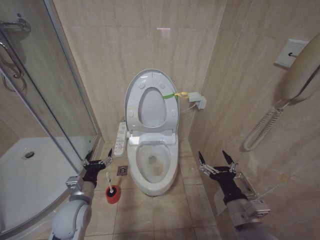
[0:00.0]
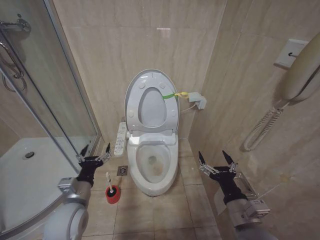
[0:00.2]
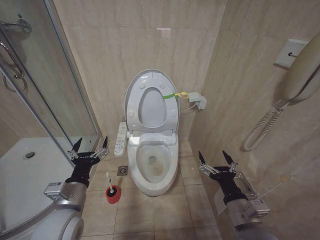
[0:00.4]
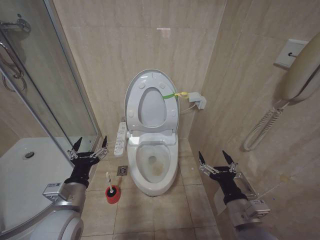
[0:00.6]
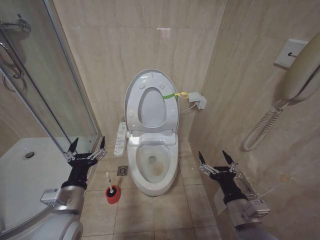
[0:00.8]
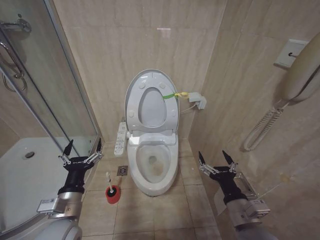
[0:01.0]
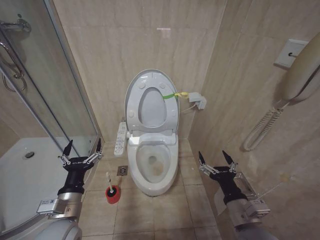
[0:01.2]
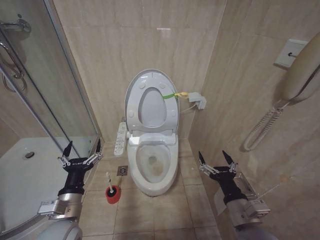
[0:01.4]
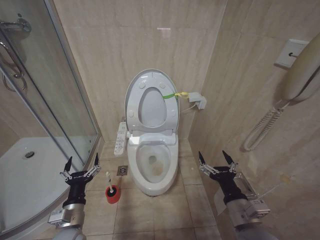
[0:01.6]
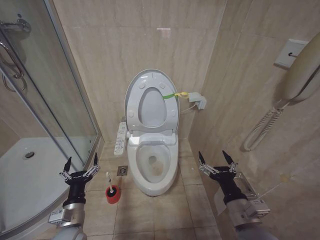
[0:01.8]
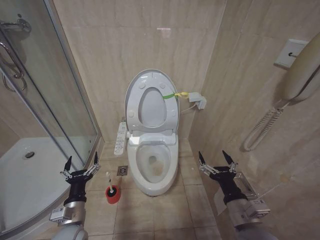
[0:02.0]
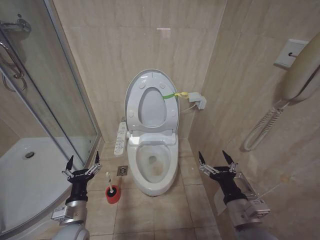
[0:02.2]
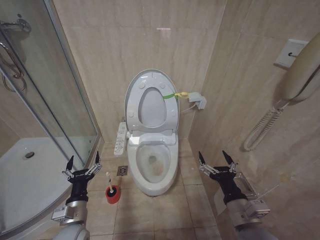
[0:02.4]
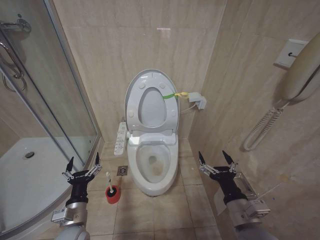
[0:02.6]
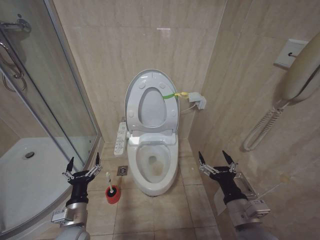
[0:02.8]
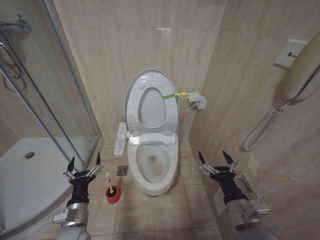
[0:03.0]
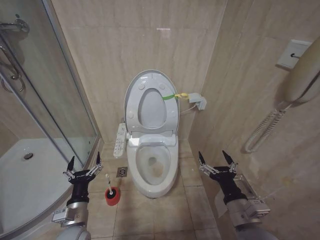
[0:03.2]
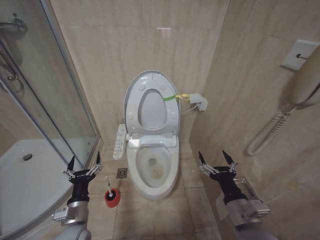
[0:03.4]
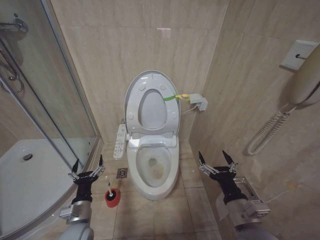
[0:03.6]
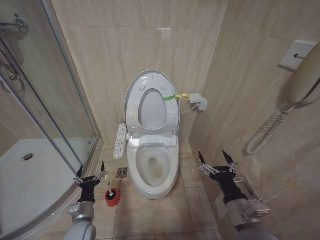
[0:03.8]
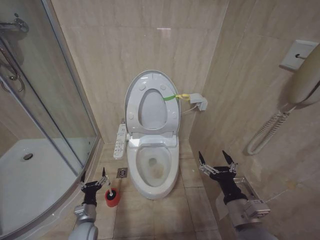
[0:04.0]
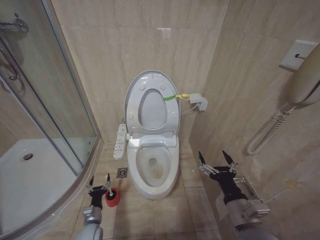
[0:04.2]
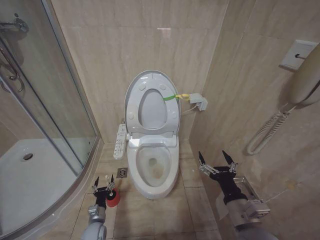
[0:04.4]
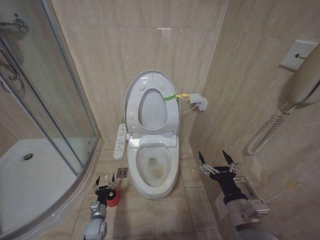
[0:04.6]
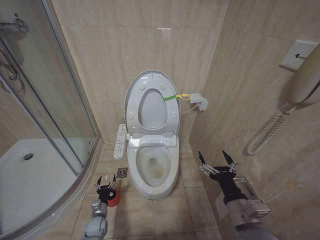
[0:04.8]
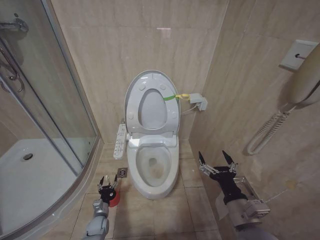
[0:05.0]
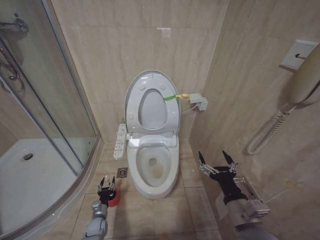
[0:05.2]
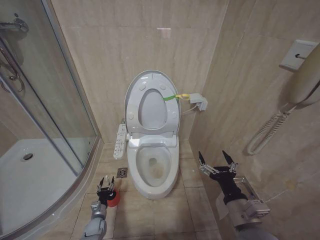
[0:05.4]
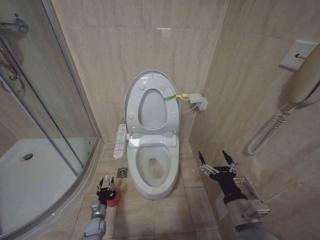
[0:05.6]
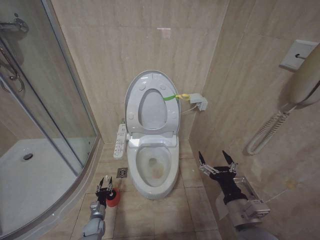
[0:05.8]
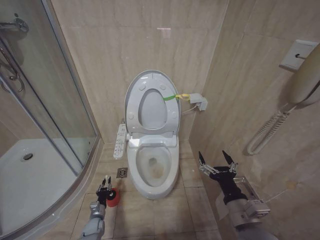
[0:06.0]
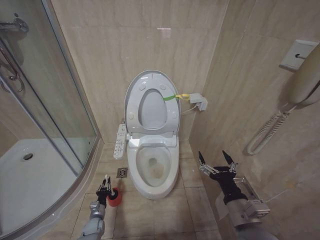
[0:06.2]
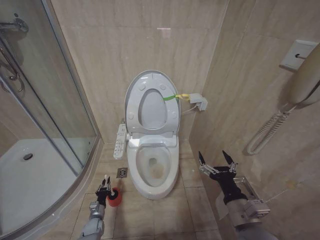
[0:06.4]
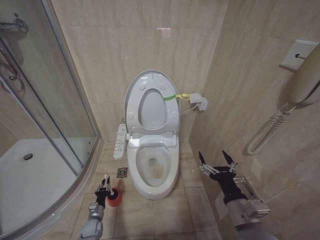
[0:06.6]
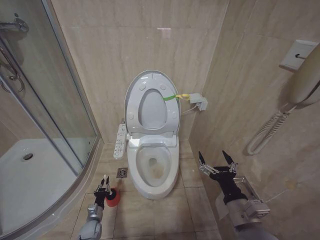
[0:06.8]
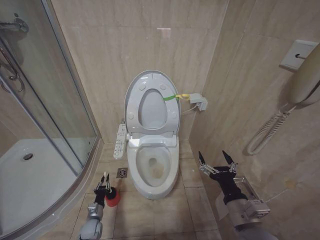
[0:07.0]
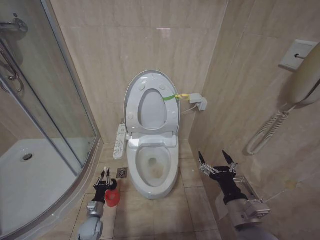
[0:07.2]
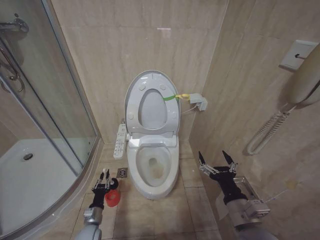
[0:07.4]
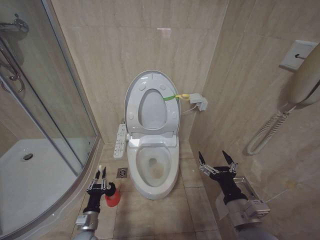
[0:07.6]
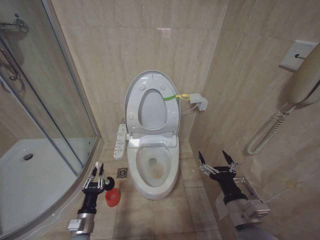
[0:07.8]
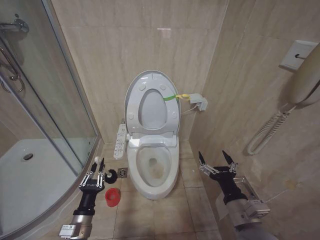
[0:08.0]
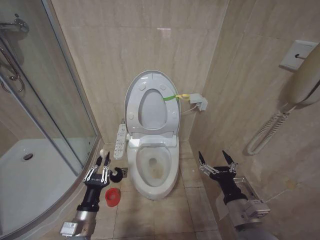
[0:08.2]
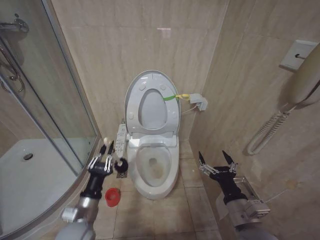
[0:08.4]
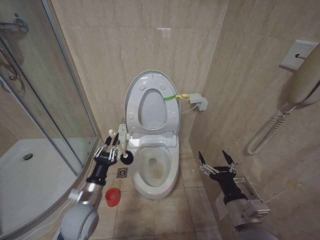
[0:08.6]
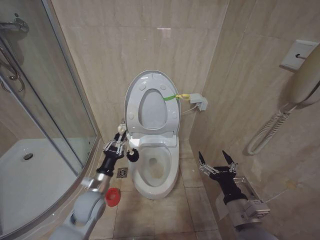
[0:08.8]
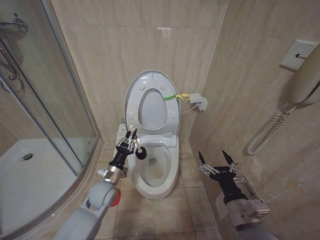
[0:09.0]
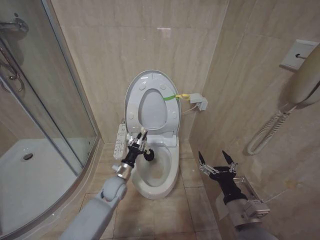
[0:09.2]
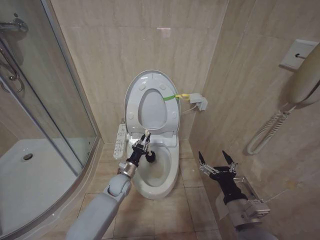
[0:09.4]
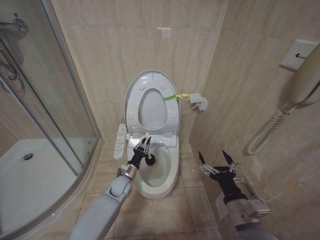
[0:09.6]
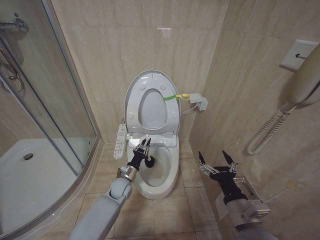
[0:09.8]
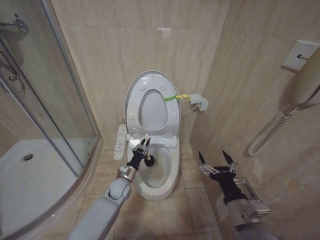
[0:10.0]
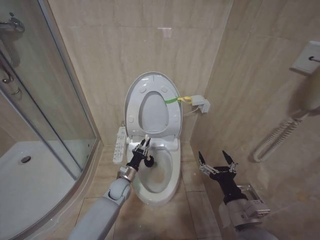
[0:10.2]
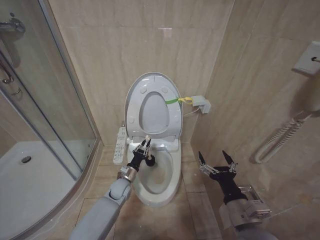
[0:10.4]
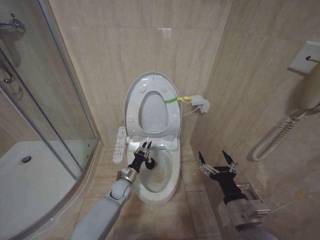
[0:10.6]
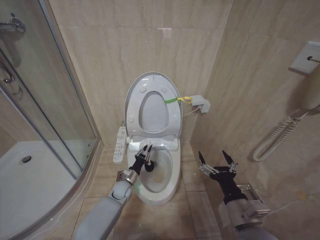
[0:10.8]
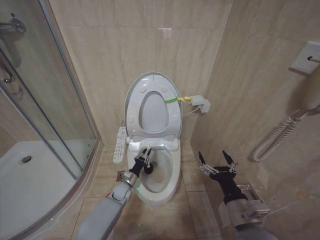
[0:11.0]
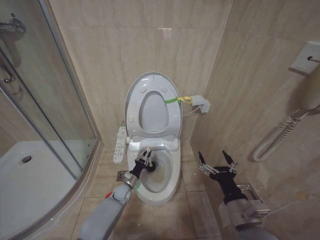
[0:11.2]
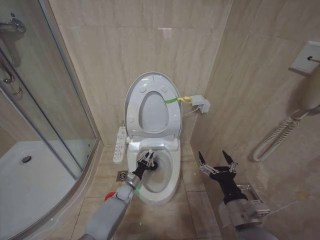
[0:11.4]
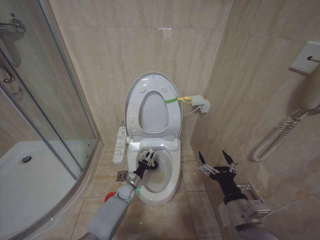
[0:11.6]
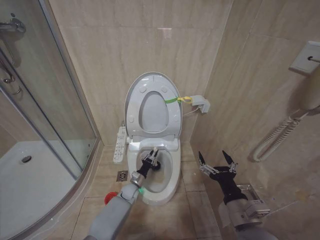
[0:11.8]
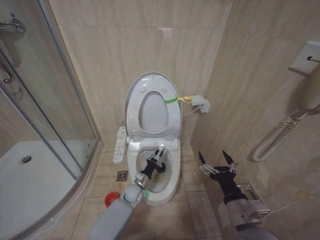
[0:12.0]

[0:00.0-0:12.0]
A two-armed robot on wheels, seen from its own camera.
Task of the whole recording: Open the toilet lid, clean the toilet bowl with a toilet brush, close the toilet lid, and flush.
0:00.0 to 0:01.6: The left gripper moves backward, approximately 5 cm, and travels upward and back again, about 10 cm each way.
0:01.6 to 0:03.0: The grippers stay close to where they were, moving slightly.
0:03.0 to 0:04.4: The left gripper travels downward by roughly 20 cm.
0:04.4 to 0:06.0: The left gripper heads downward, covering approximately 5 cm.
0:06.0 to 0:07.6: The left gripper goes some 15 cm upward and backward, and closes its fingers.
0:07.6 to 0:09.0: The left gripper goes approximately 20 cm upward and forward.
0:09.0 to 0:10.4: The left gripper shifts roughly 15 cm downward, forward and to the right.
0:10.4 to 0:12.0: The left gripper goes about 5 cm downward.

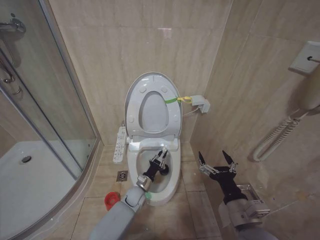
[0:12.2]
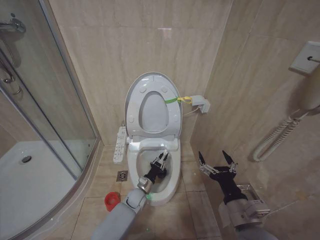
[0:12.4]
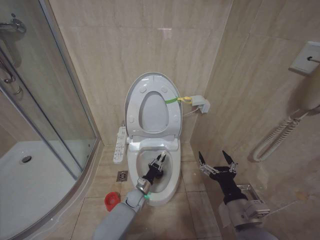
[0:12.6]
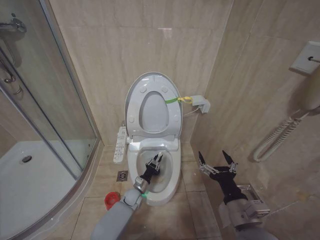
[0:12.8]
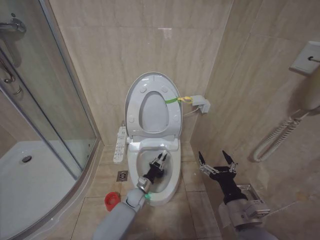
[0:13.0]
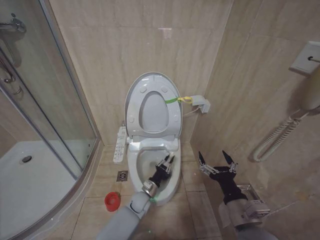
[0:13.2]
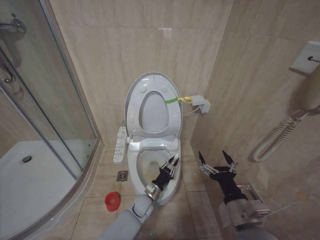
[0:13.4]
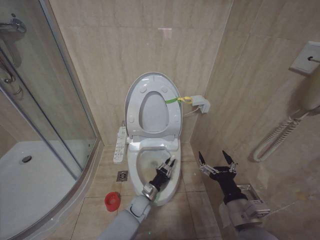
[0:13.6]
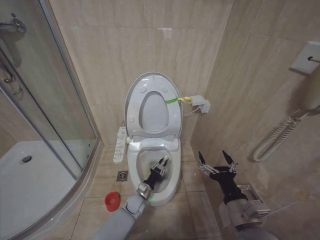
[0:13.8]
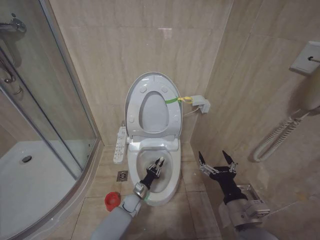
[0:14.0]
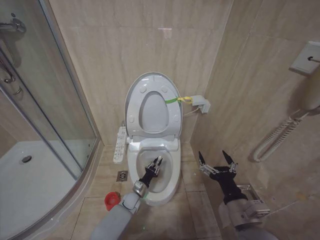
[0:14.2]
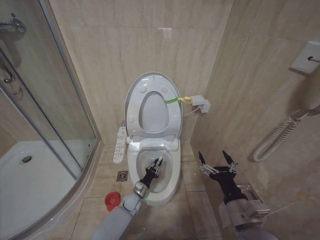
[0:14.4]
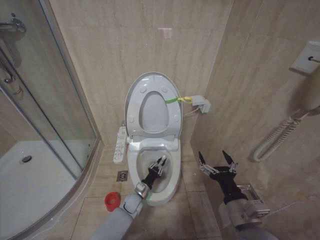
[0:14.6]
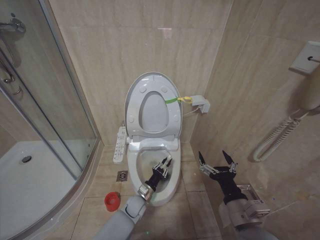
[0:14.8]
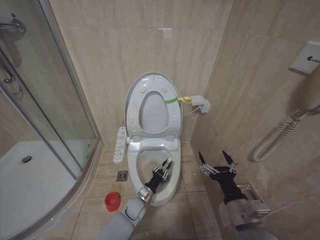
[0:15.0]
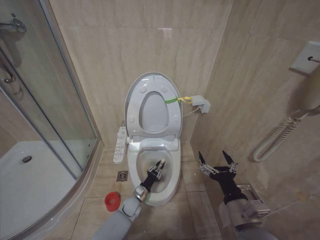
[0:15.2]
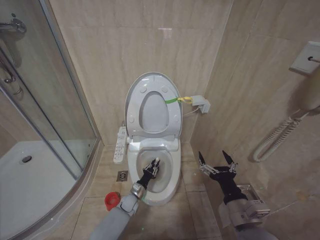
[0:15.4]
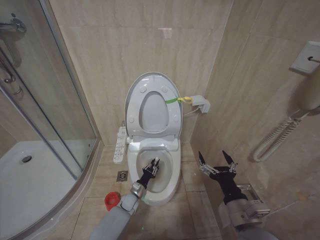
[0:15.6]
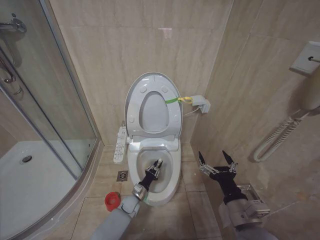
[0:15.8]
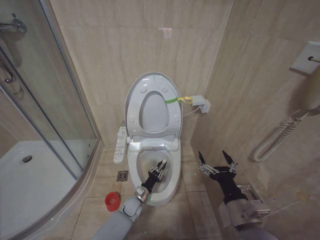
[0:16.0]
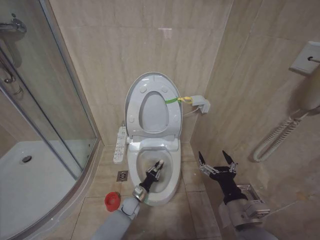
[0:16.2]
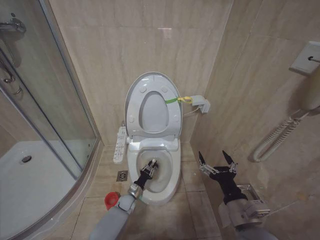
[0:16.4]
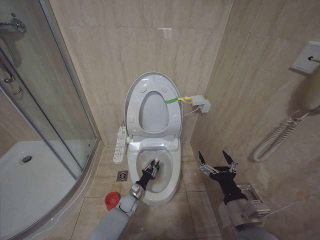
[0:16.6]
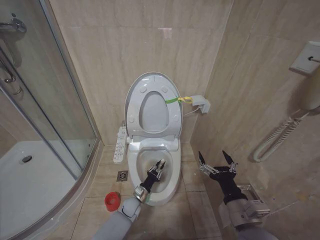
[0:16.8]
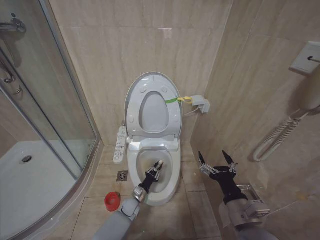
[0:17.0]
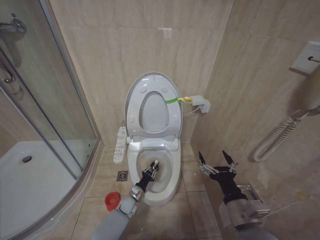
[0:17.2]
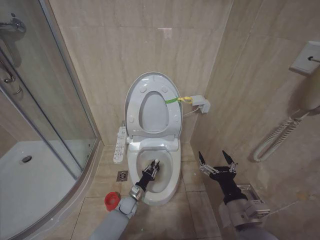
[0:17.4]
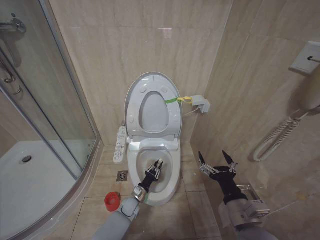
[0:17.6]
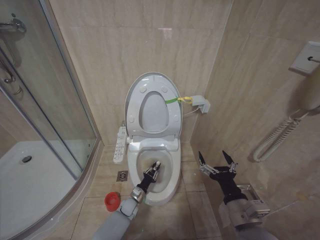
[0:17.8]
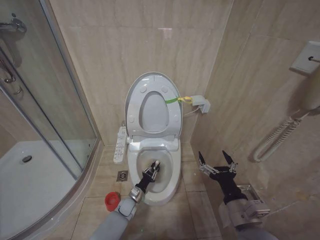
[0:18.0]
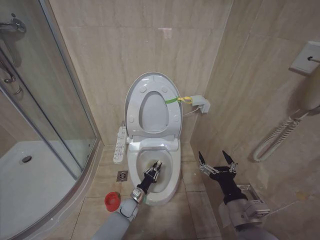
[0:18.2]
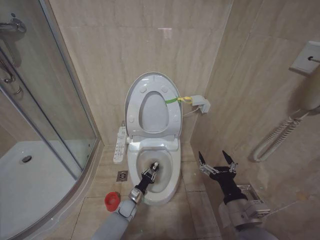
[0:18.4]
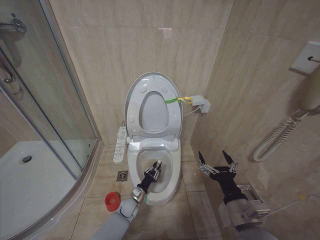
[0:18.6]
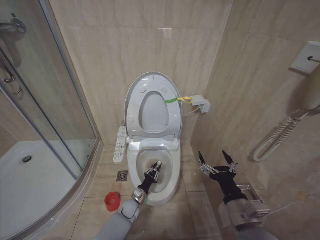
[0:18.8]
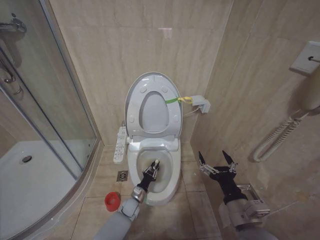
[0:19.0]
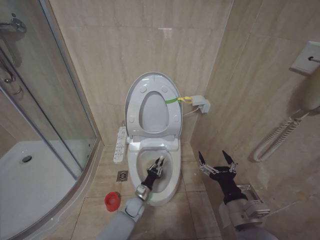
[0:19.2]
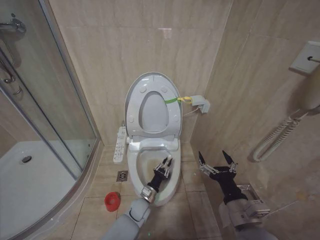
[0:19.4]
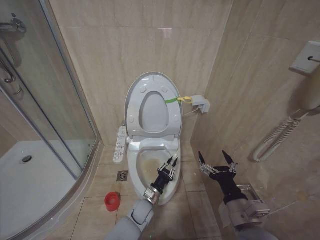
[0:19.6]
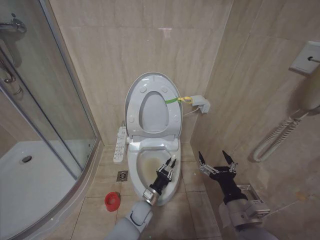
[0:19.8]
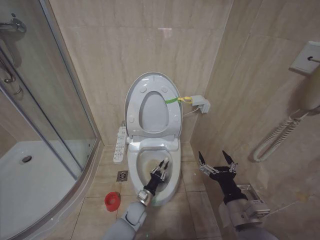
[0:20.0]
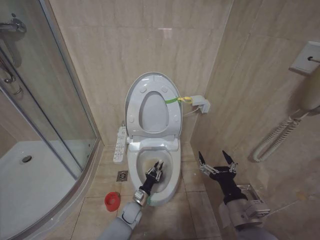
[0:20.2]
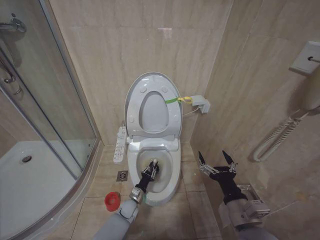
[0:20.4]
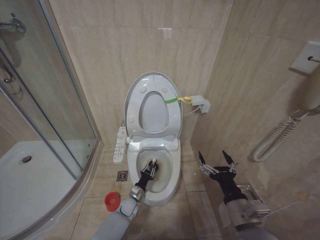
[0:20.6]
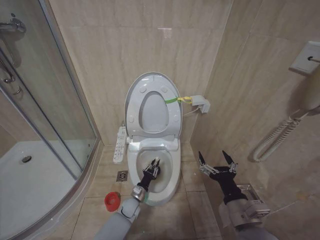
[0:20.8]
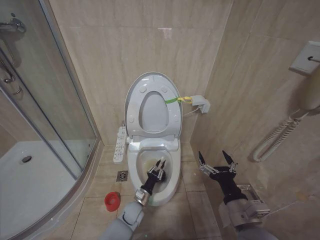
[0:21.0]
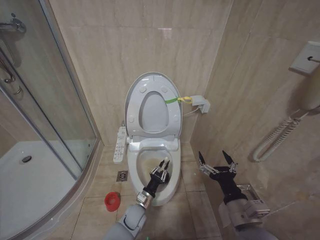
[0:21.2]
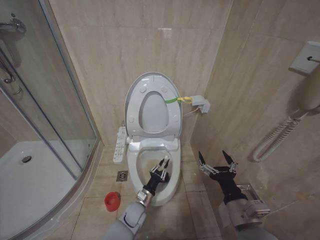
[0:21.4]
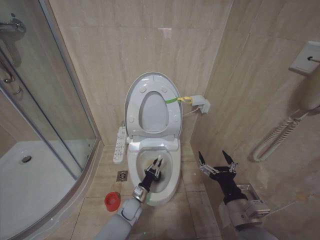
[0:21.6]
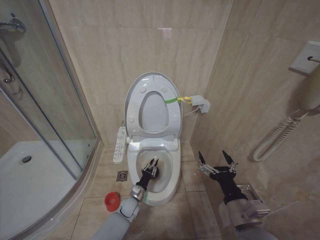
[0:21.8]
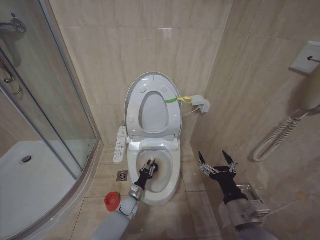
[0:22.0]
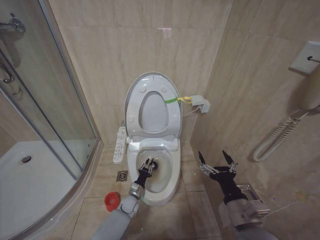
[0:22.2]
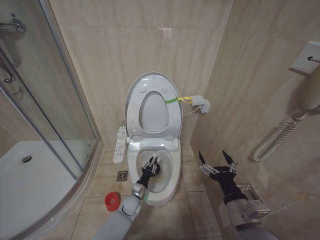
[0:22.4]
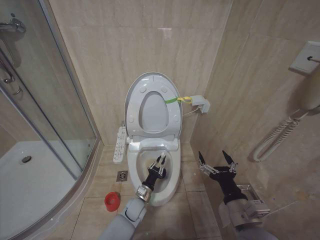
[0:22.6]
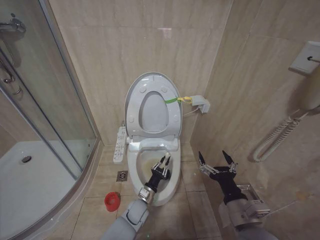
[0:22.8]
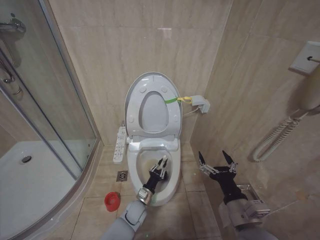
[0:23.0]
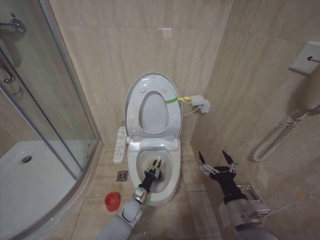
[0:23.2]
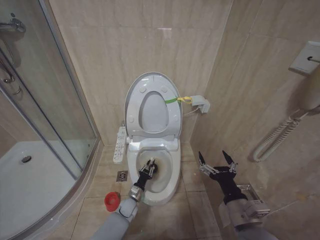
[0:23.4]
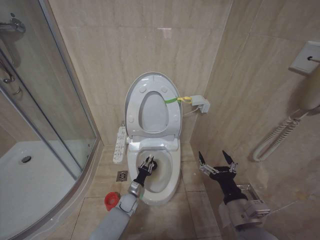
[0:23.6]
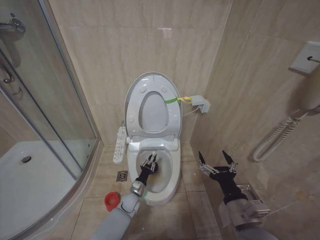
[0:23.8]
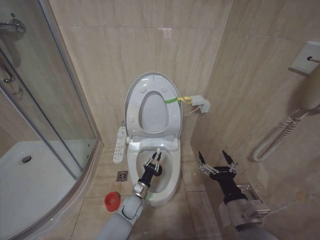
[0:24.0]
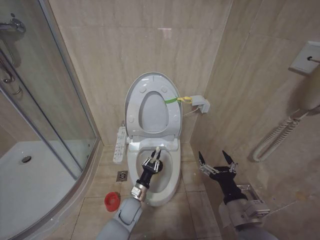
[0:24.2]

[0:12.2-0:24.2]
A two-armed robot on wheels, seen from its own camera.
Task of the whole recording: Open the toilet lid, clean the toilet bowl with a toilet brush, close the toilet lid, and flush.
0:12.2 to 0:13.8: The grippers move only a little.
0:15.2 to 0:16.6: The left gripper changes place by about 5 cm.
0:18.2 to 0:19.8: The left gripper heads to the right and upward, covering approximately 10 cm.
0:22.6 to 0:24.2: The left gripper moves approximately 5 cm.
